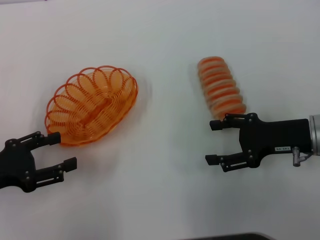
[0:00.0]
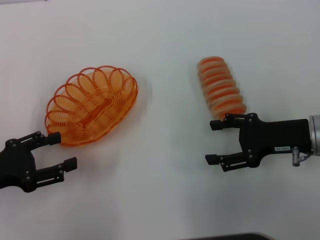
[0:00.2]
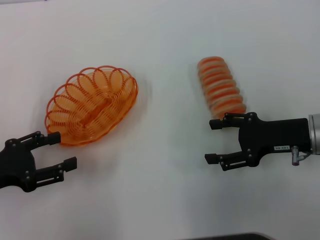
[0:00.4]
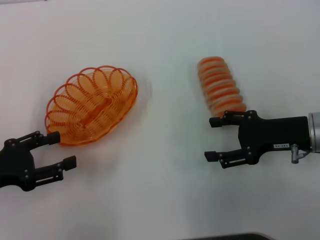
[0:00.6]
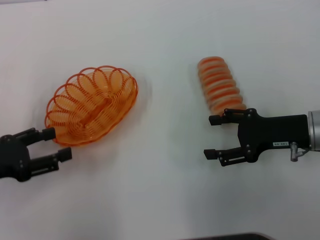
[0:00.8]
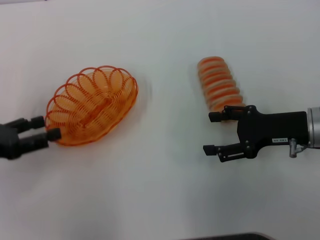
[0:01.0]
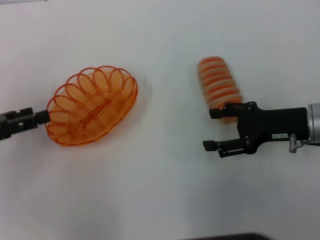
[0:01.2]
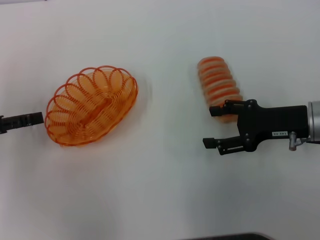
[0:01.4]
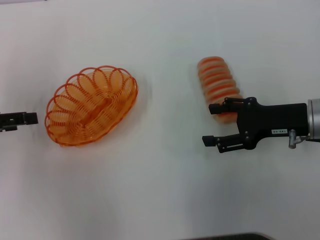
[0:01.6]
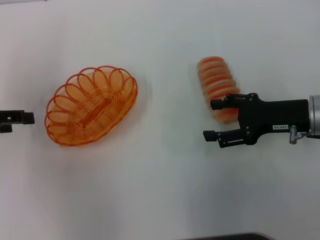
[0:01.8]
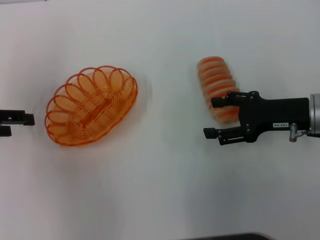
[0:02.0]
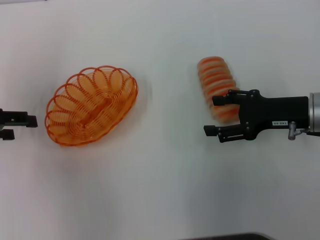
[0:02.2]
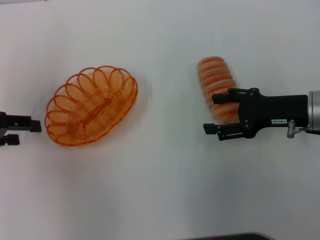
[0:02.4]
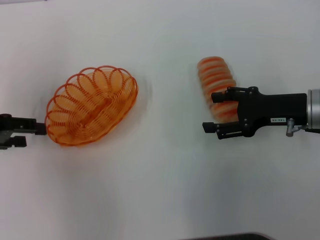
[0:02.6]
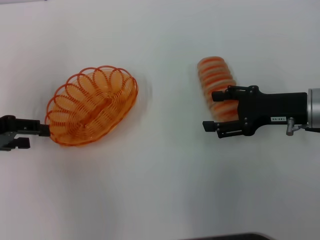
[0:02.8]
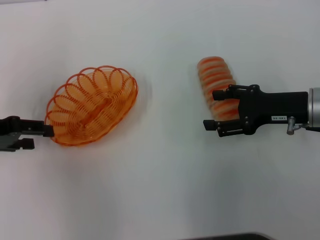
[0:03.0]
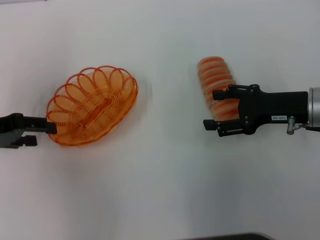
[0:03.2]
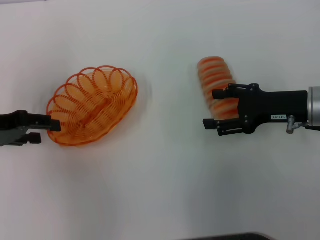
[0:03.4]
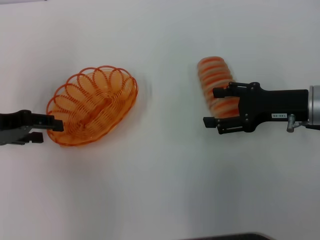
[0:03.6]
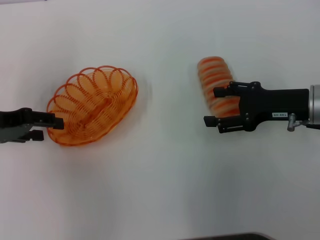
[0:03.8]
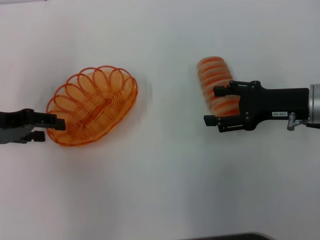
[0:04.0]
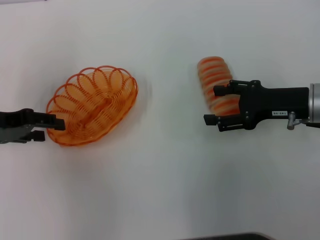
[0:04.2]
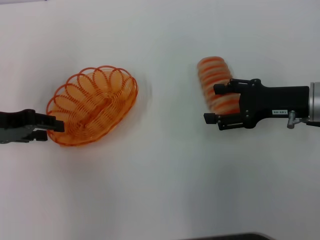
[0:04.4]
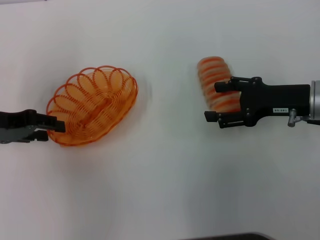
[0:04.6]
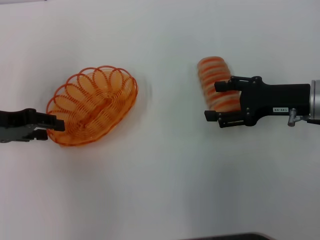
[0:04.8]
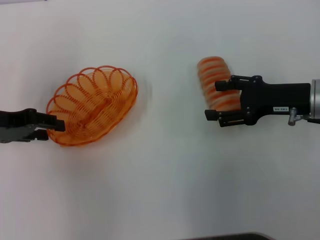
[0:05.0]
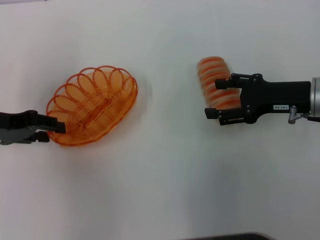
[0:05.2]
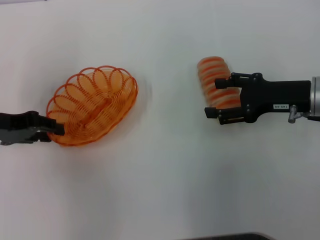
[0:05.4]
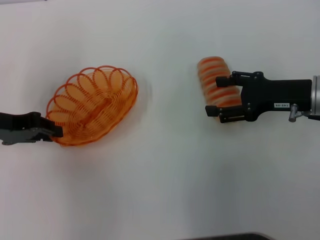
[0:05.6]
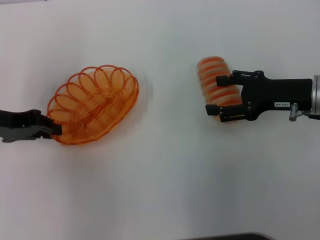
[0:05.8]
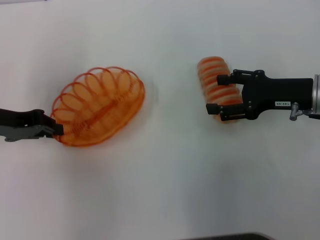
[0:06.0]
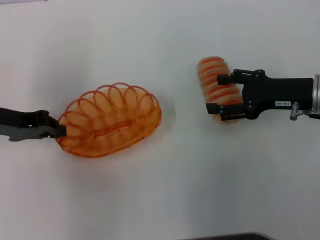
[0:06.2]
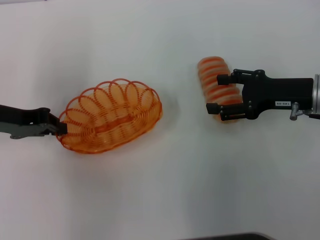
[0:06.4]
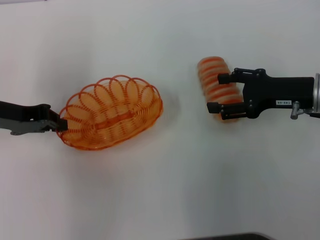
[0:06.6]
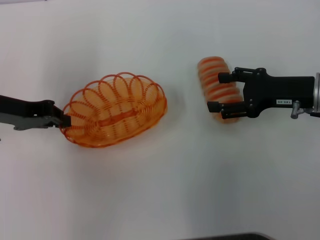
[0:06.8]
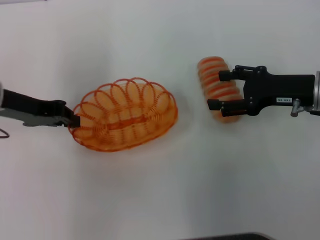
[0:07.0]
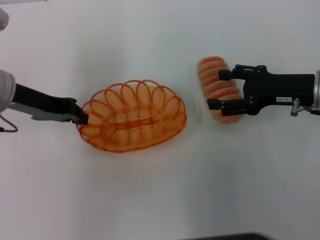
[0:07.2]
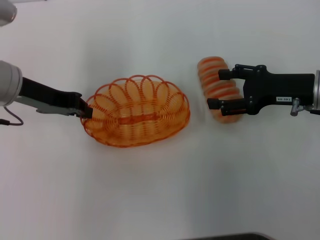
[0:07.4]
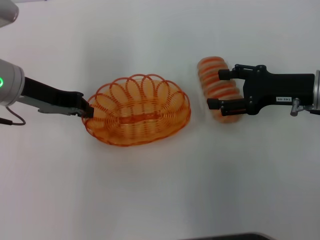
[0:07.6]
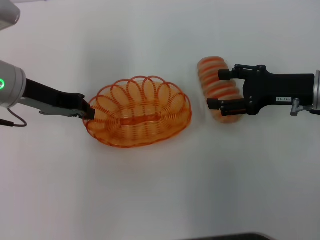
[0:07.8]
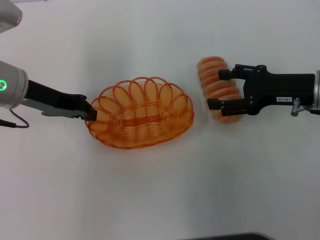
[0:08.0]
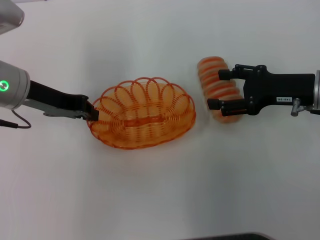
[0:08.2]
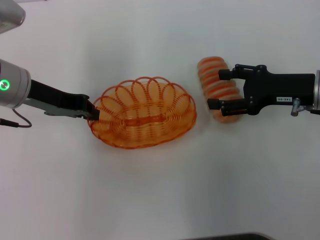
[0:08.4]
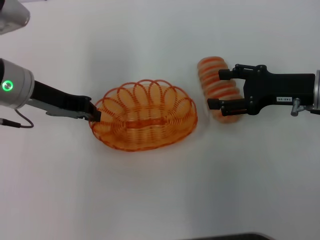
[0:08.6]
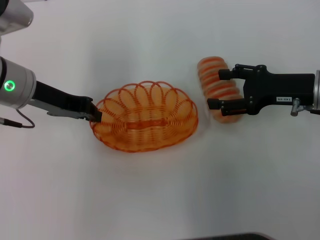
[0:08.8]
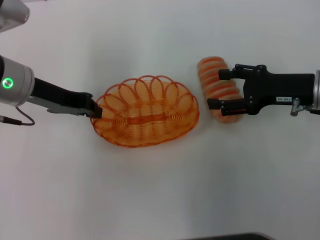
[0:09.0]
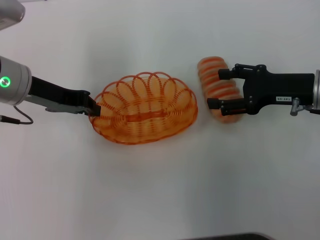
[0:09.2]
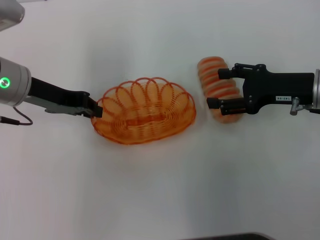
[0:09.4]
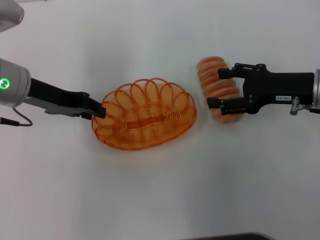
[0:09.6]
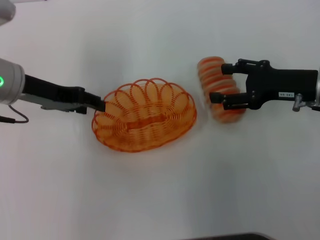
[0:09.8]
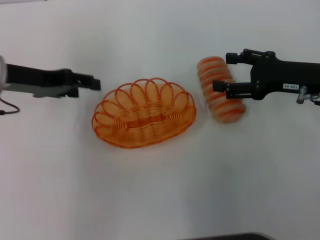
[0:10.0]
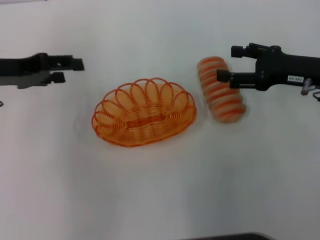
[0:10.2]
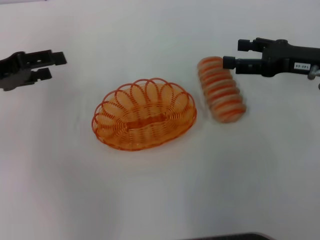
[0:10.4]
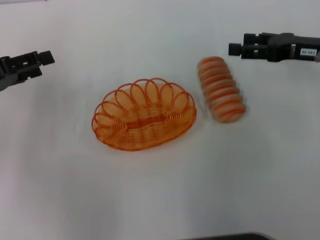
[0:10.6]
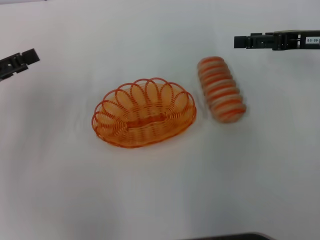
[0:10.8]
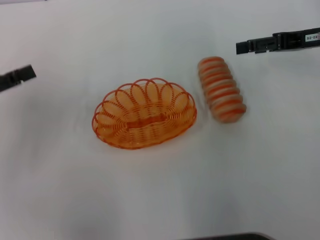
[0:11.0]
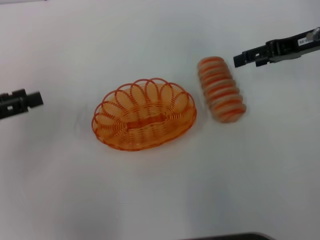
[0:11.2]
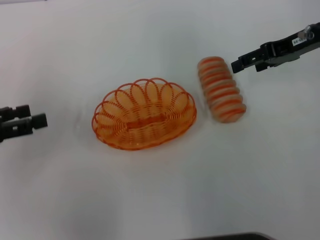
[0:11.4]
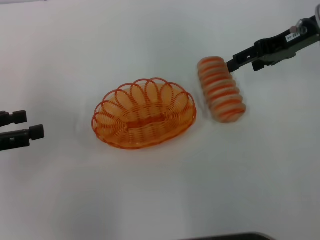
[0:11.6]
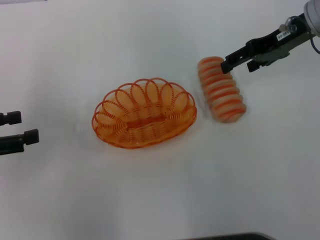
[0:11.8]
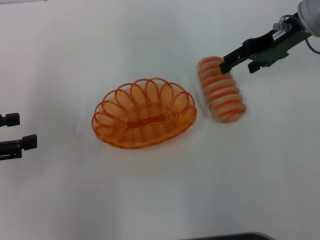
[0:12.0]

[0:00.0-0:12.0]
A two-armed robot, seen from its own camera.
Step, 0:00.0 to 0:06.6: Pick up the basket with the left gripper.
Step, 0:06.8 to 0:10.0: Place the basket in the center of view with the left gripper.
0:00.0 to 0:01.6: The left gripper is displaced forward and upward by approximately 10 cm.
0:01.6 to 0:04.4: The grippers make only small movements.
0:04.4 to 0:06.0: The left gripper closes up.
0:06.0 to 0:07.6: The left gripper is displaced to the right by roughly 5 cm.
0:07.6 to 0:09.0: The grippers move only a little.
0:09.0 to 0:10.4: The left gripper travels to the left by approximately 10 cm, and opens up.
0:10.4 to 0:12.0: The right gripper is displaced forward, upward and to the left by some 10 cm, while the left gripper heads backward and to the left, covering some 10 cm.

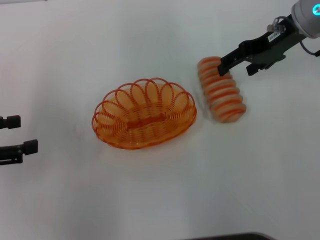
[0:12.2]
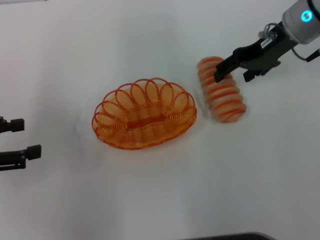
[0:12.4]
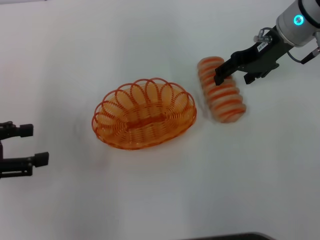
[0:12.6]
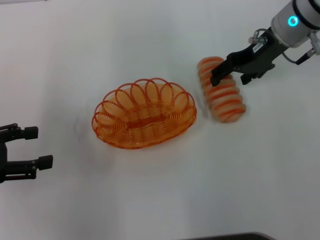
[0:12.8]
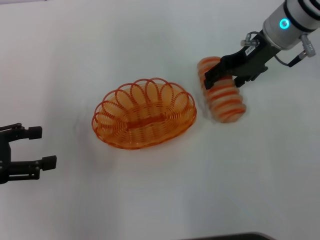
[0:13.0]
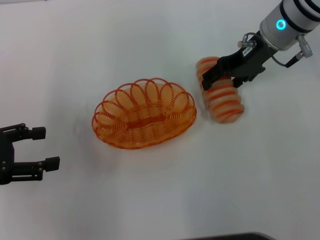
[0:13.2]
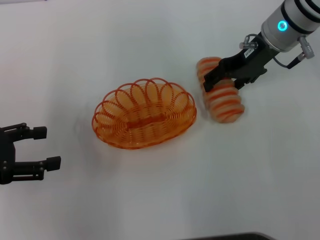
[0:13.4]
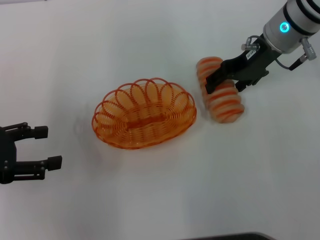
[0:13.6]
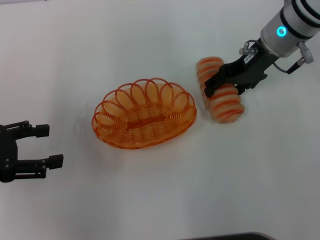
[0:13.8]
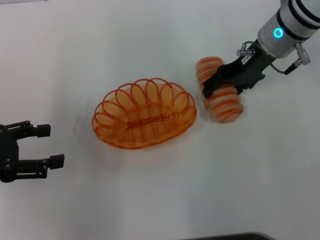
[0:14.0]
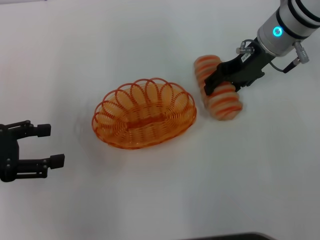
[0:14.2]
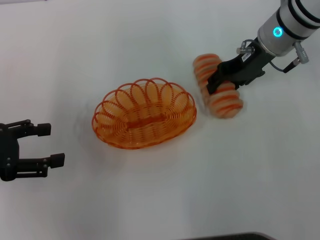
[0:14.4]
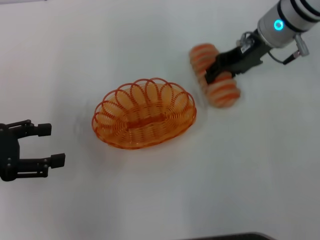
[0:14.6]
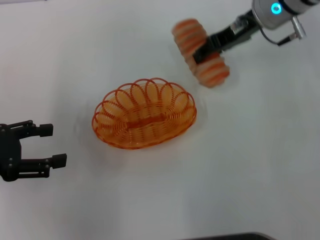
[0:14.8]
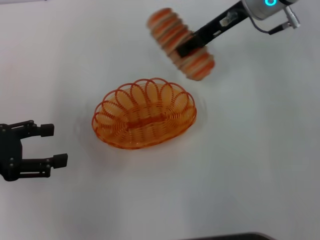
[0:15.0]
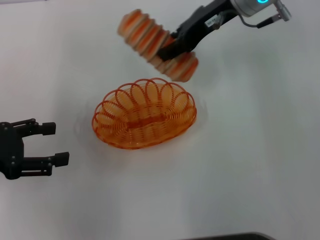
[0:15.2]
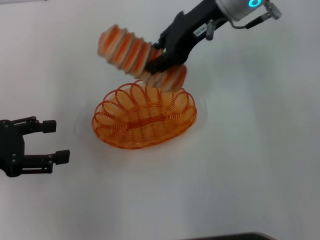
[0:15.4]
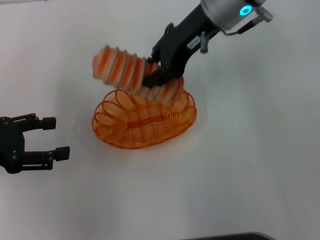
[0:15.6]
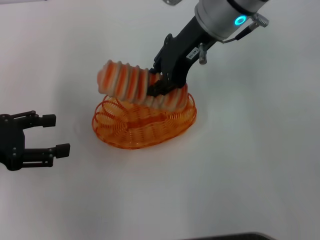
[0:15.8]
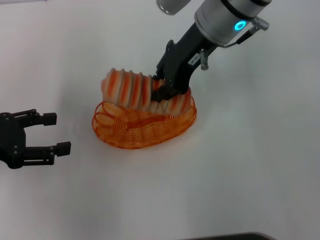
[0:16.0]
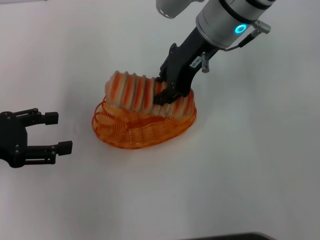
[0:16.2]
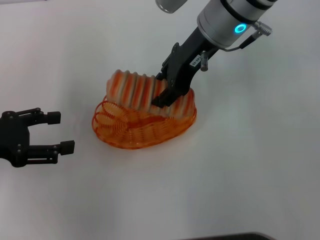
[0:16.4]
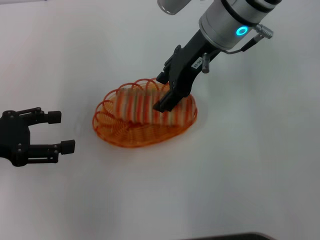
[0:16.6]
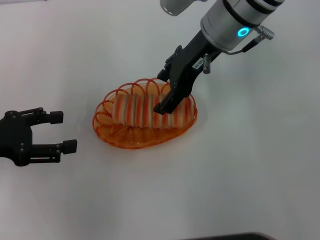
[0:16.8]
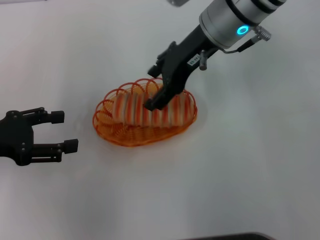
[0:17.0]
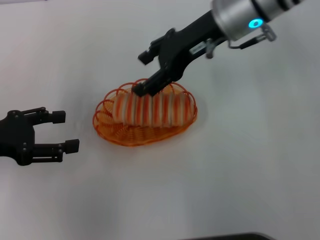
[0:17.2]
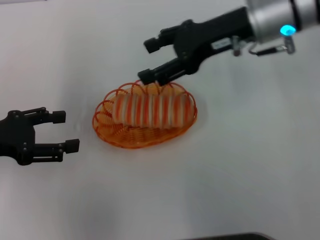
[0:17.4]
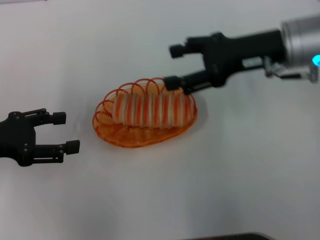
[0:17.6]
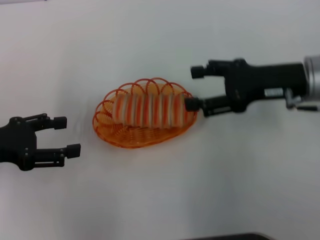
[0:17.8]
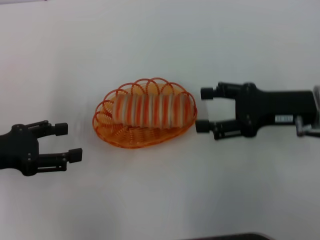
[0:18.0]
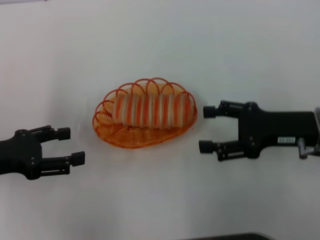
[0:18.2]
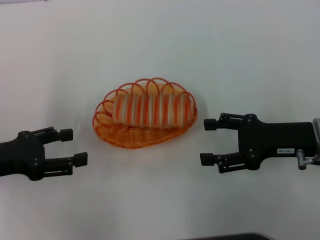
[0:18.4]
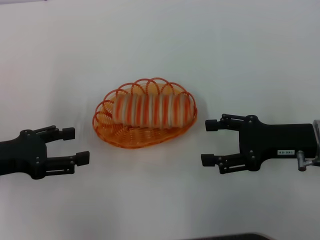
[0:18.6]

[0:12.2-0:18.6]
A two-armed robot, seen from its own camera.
Step, 0:12.2 to 0:14.8: Pick up the long bread with the right gripper.
Step, 0:15.0 to 0:17.2: Place the long bread into the basket with the right gripper.
0:12.2 to 0:13.8: There are only small adjustments of the grippers.
0:13.8 to 0:15.4: The right gripper heads to the left and upward, covering about 10 cm, and closes.
0:15.4 to 0:17.0: The right gripper opens.
0:17.0 to 0:18.6: The right gripper shifts some 25 cm to the right, backward and downward.
